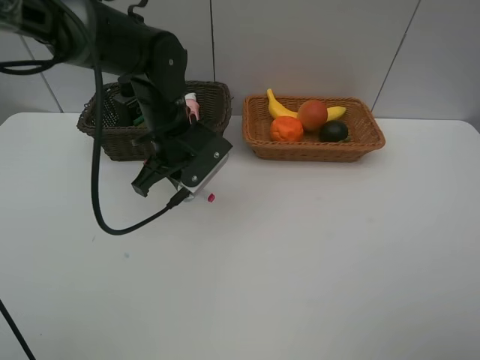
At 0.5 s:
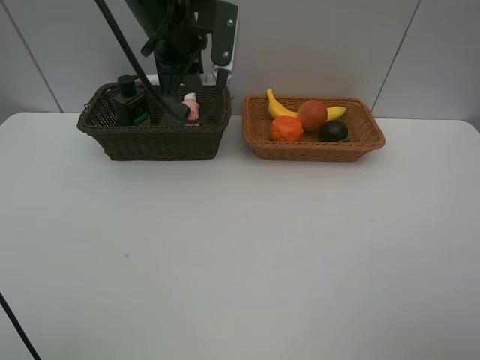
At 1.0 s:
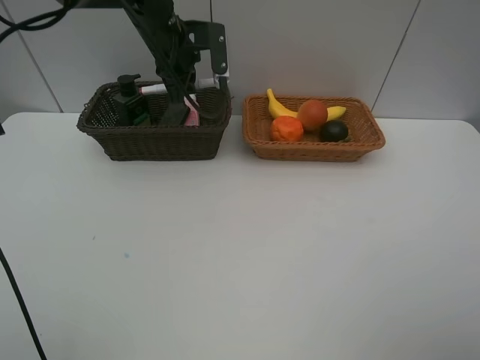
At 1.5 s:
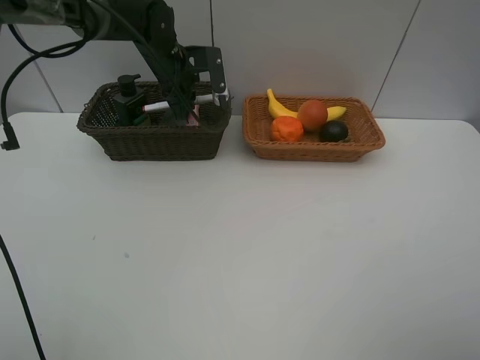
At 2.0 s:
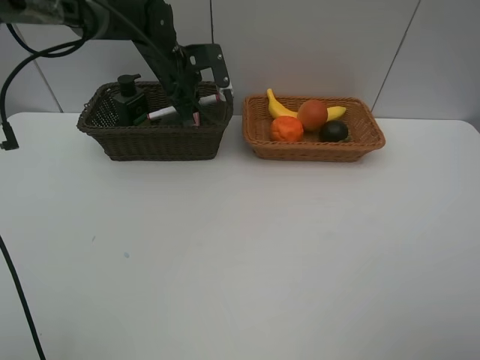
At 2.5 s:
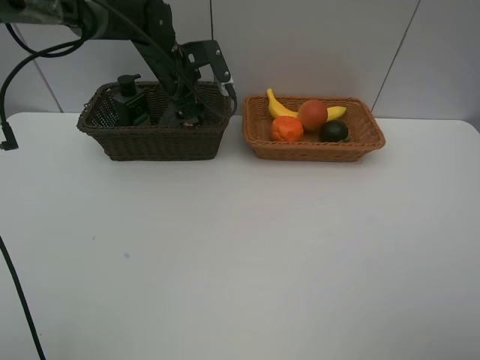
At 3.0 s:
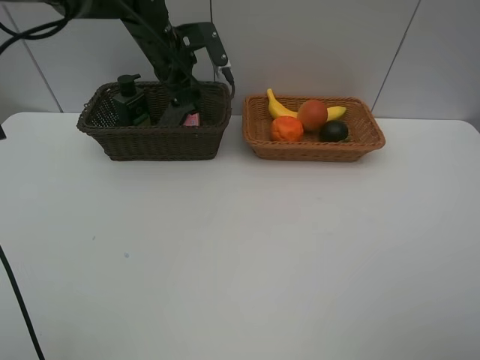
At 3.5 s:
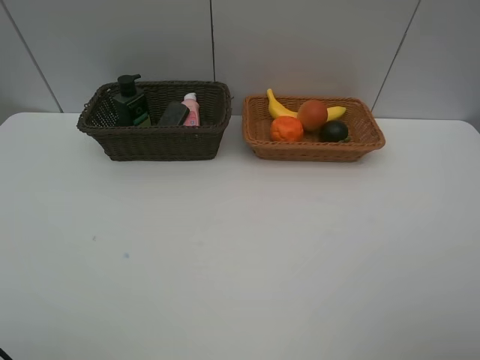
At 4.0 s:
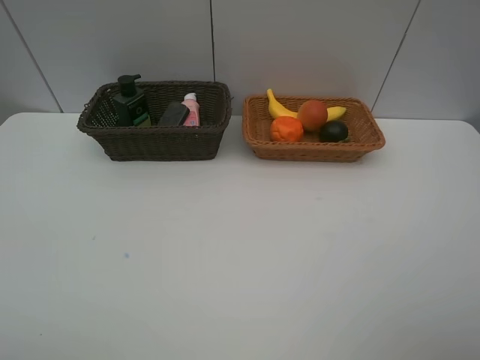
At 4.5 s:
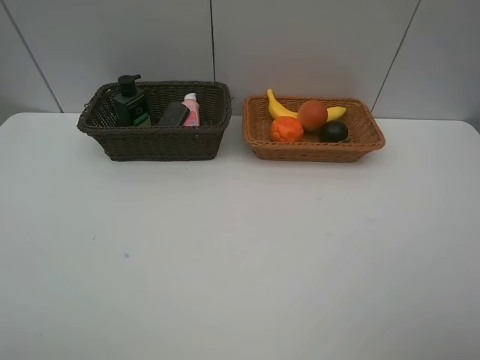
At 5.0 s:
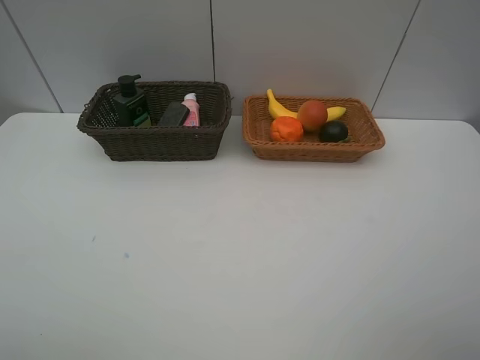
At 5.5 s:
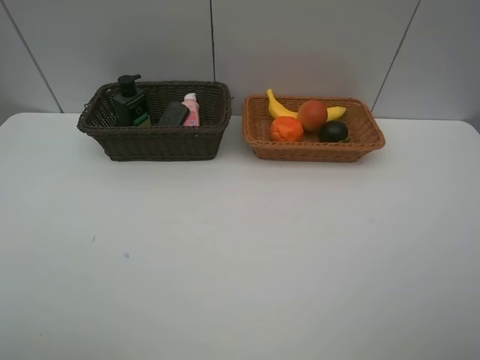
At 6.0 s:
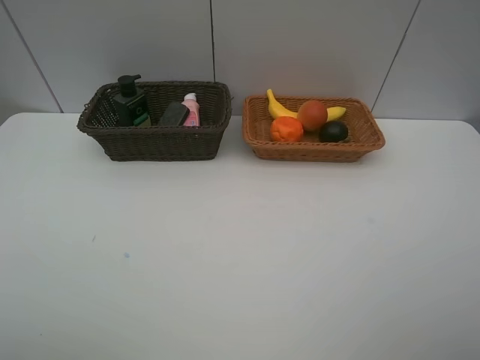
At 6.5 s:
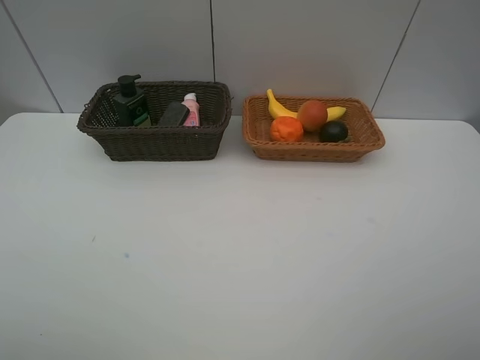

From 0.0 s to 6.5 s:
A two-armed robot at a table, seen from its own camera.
Task of the whole recording: Place multiple objects separately in different baskets.
Step, from 0.0 s to 2.5 s: Place the red marker in the dark basket with left gripper.
From 0.0 s to 2.0 s: The left gripper heads forward, covering some 15 cm.
From 2.0 s to 4.5 s: The left gripper heads backward, upward and to the left, covering roughly 60 cm, and opens.

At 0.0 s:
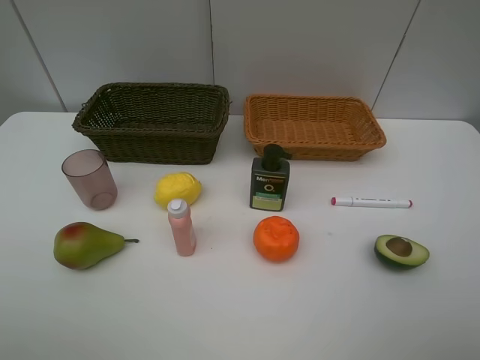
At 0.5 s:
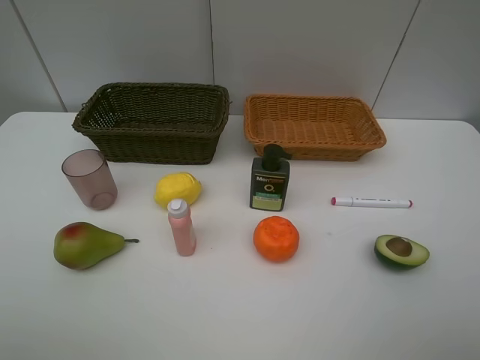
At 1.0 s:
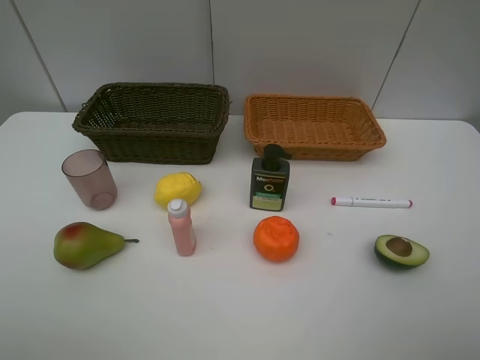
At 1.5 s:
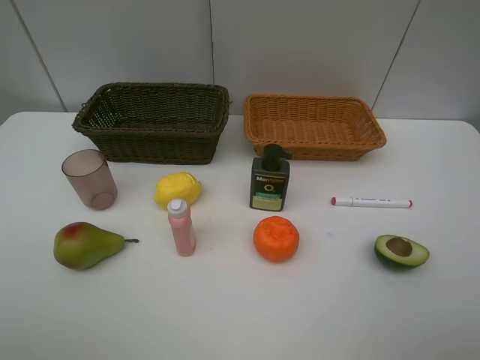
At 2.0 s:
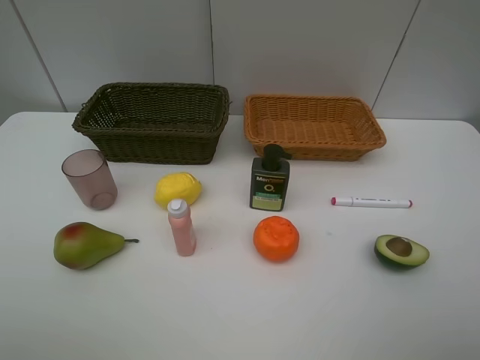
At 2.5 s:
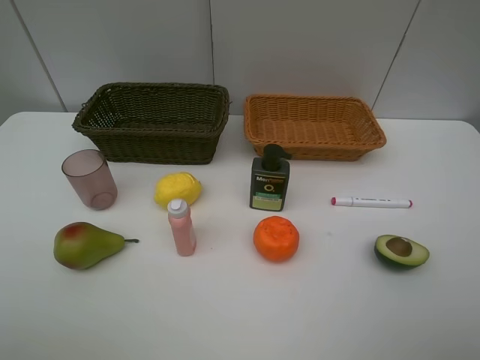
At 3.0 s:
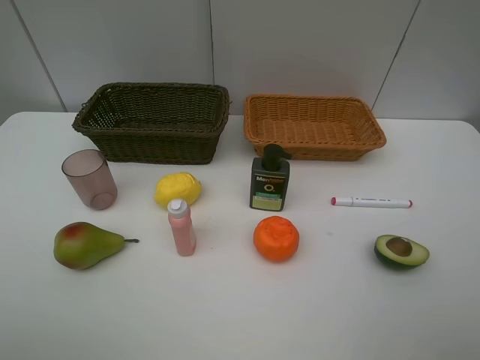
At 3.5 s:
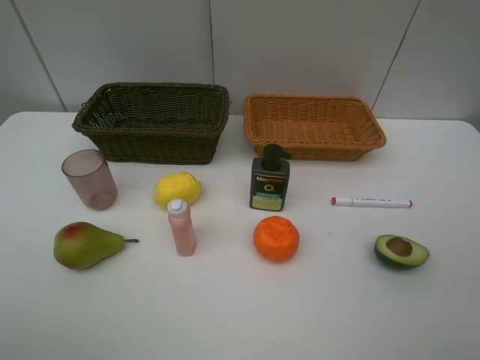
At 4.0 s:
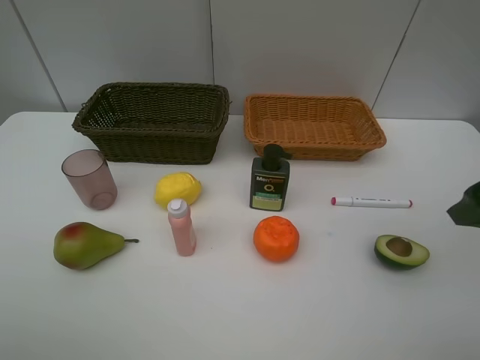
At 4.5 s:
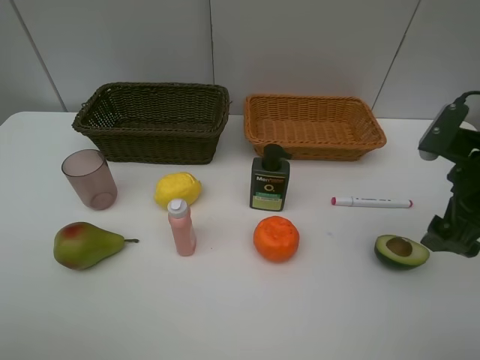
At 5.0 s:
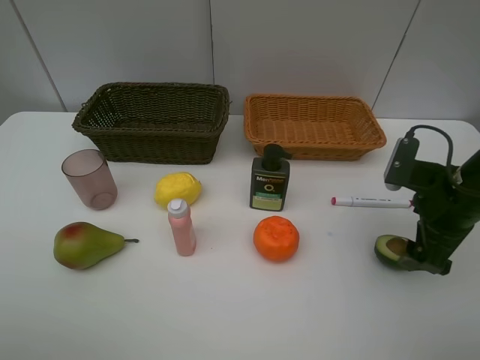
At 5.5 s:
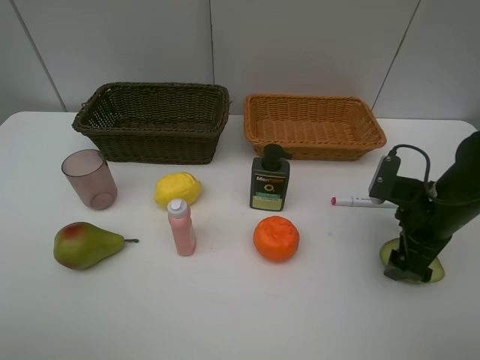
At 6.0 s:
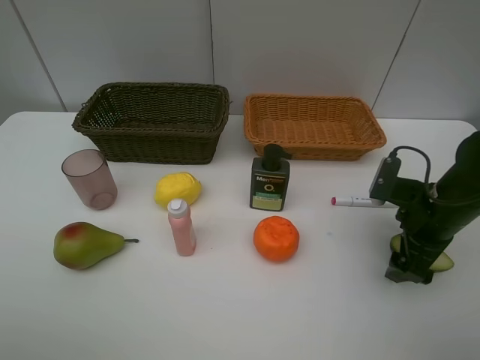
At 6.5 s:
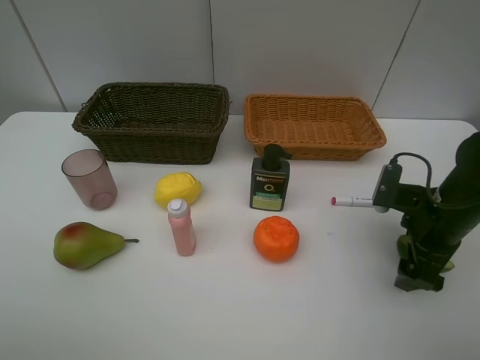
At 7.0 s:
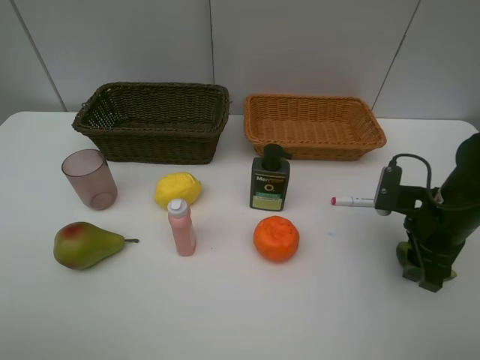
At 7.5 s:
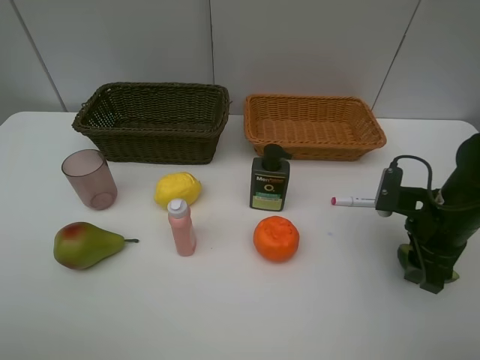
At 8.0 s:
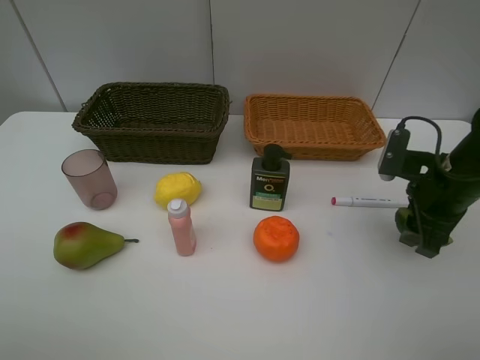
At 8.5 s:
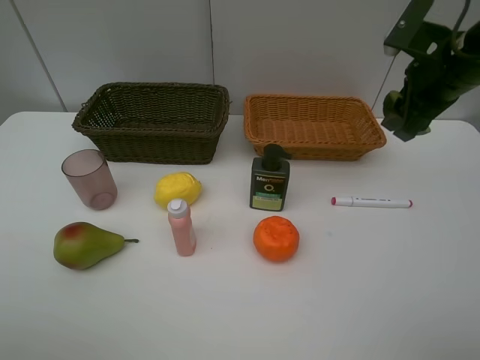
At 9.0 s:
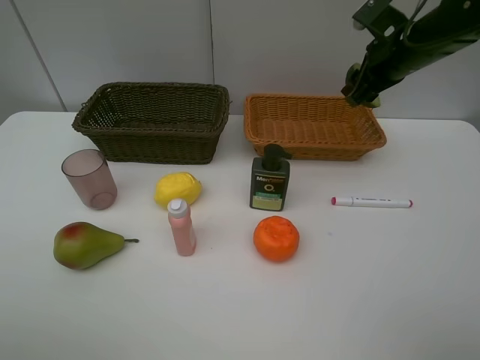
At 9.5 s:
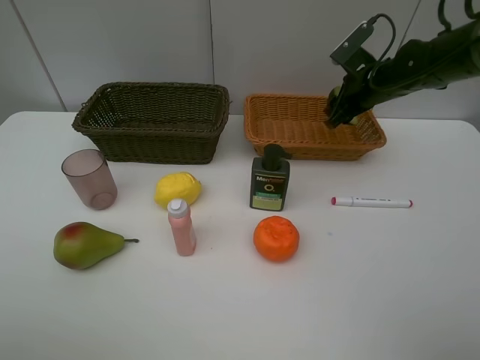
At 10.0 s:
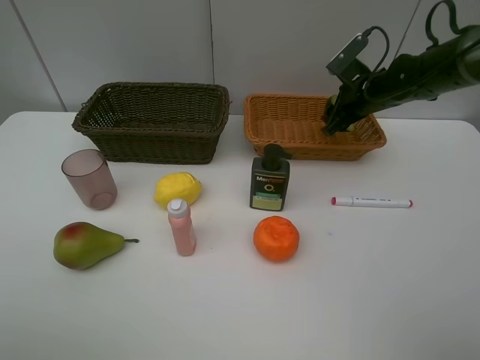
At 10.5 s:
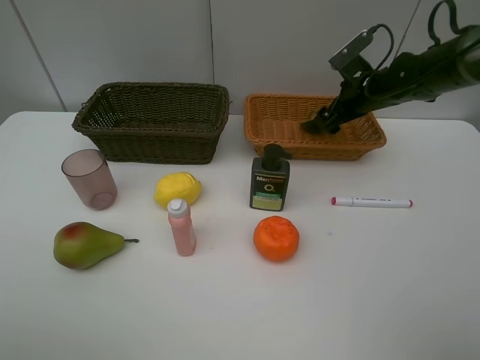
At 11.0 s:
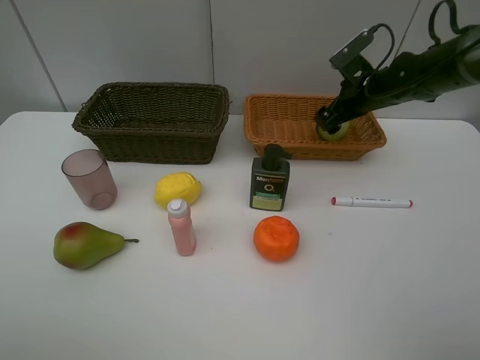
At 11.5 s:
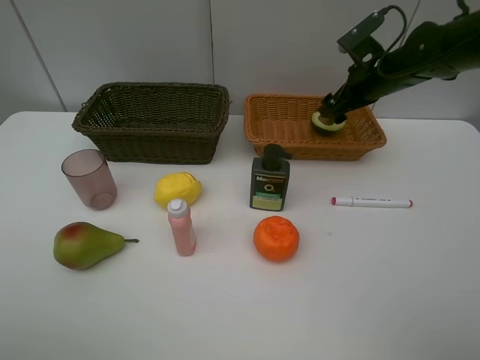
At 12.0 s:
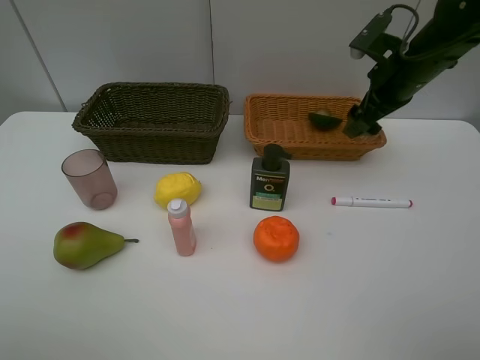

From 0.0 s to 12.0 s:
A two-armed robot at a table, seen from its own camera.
Task of the whole recording: Place multiple objects separately in different baskets.
Step, from 0.0 s to 8.0 s: Pick up the avocado with right gripper.
Step, from 8.5 s to 11.0 s: Place the avocado in the light basket with right gripper.
From 0.0 s to 2.0 s: The two grippers keep their place.
From 4.0 s to 6.0 s: The right gripper moves downward and forward, some 15 cm.
From 6.0 s to 8.0 s: The right gripper moves some 5 cm, and closes up.
From 8.0 s to 10.0 s: The right gripper heads forward, covering roughly 20 cm.
From 10.0 s to 12.0 s: The right gripper shifts approximately 10 cm upward and backward, and opens.

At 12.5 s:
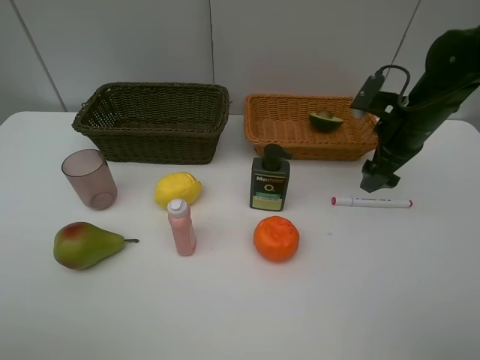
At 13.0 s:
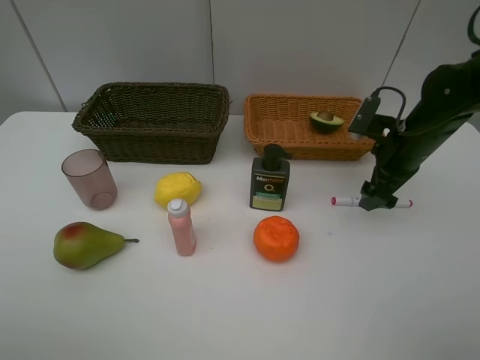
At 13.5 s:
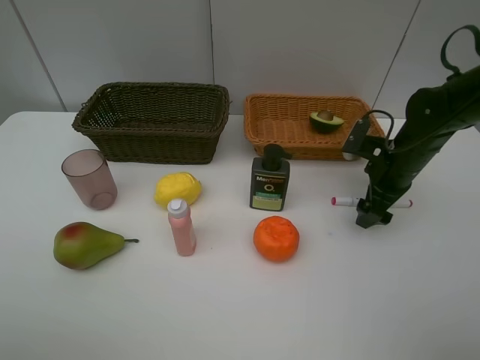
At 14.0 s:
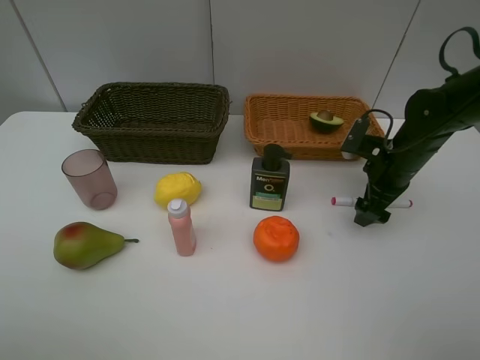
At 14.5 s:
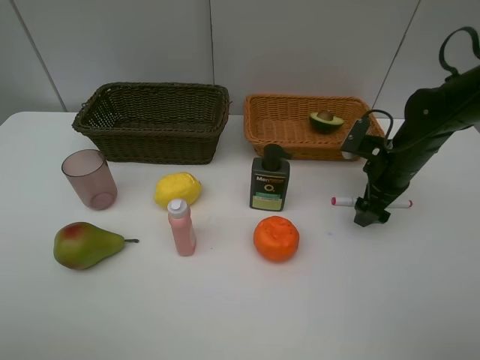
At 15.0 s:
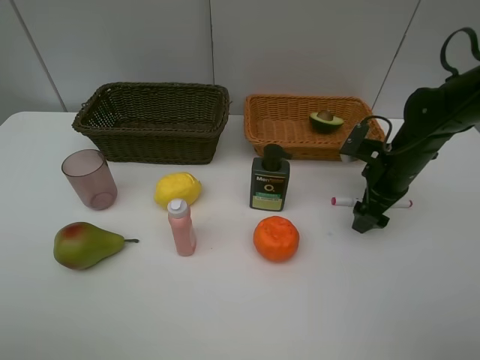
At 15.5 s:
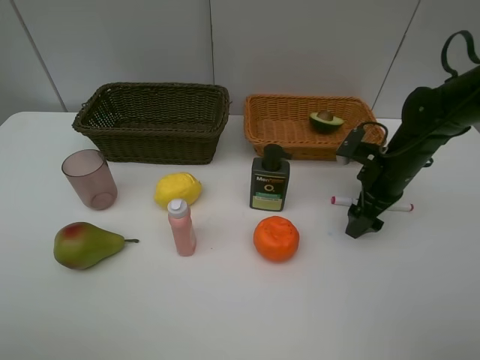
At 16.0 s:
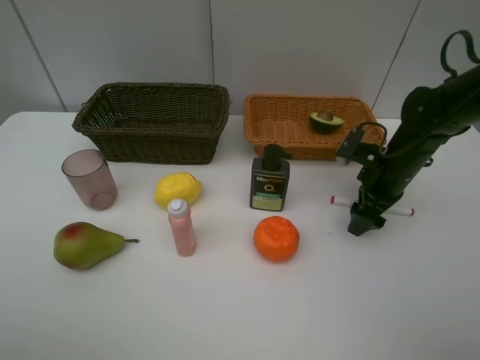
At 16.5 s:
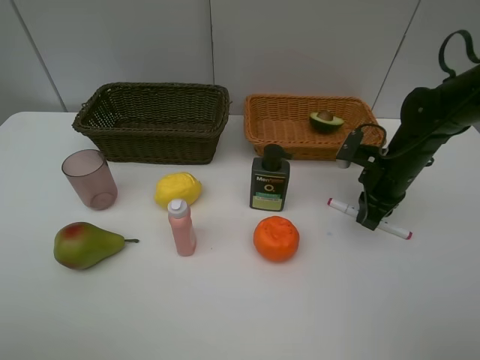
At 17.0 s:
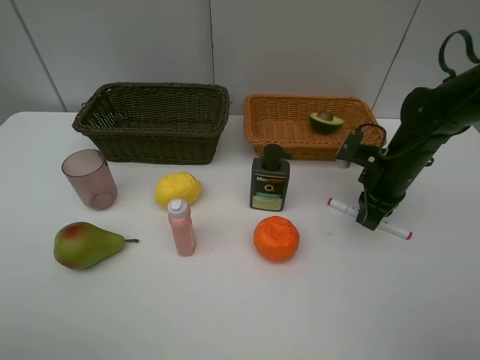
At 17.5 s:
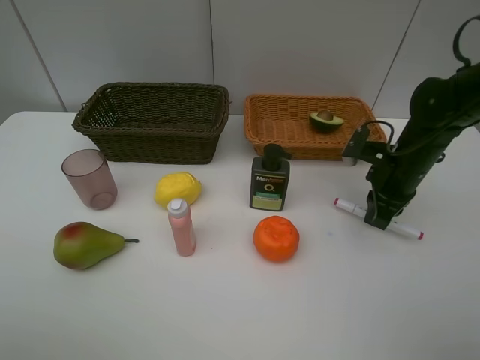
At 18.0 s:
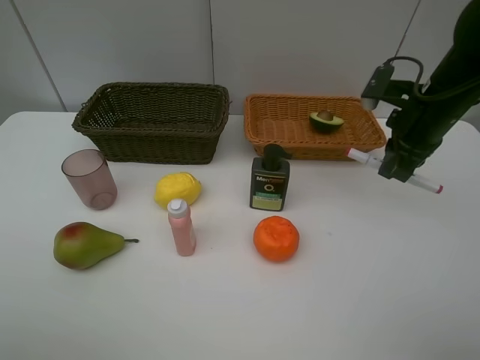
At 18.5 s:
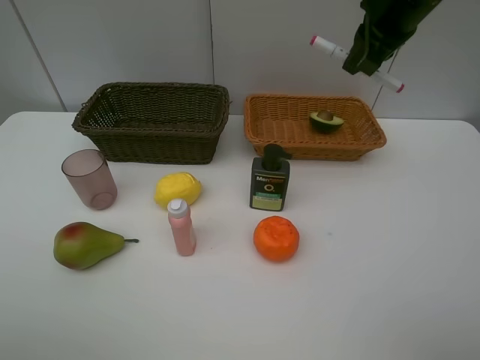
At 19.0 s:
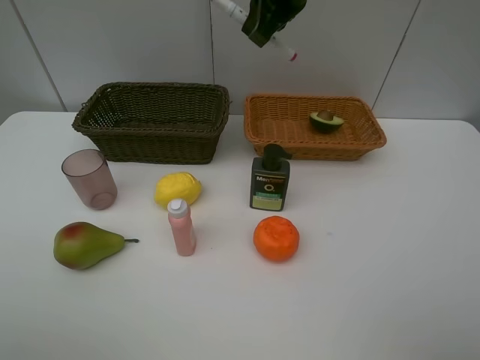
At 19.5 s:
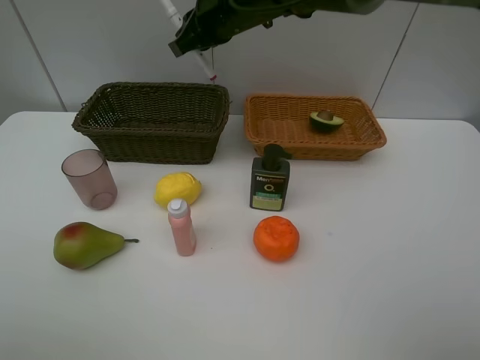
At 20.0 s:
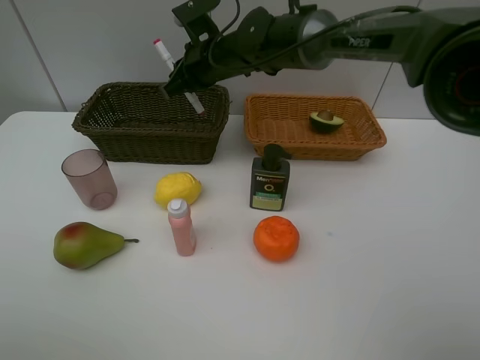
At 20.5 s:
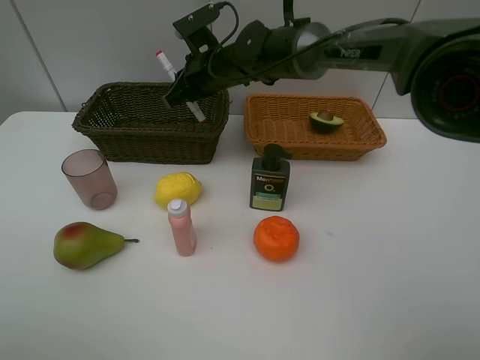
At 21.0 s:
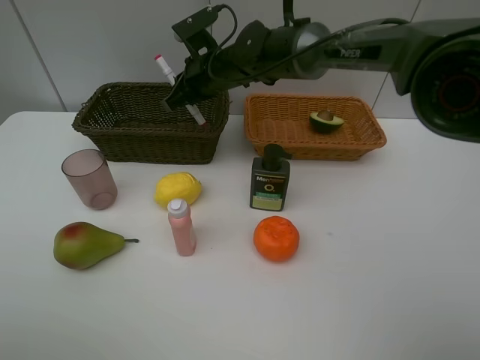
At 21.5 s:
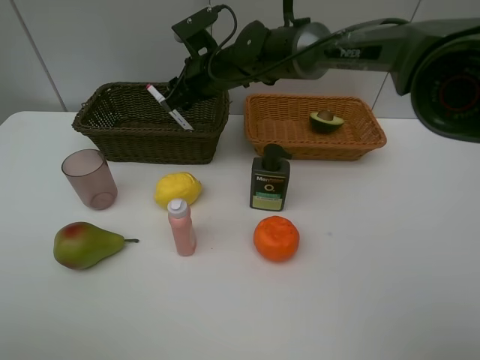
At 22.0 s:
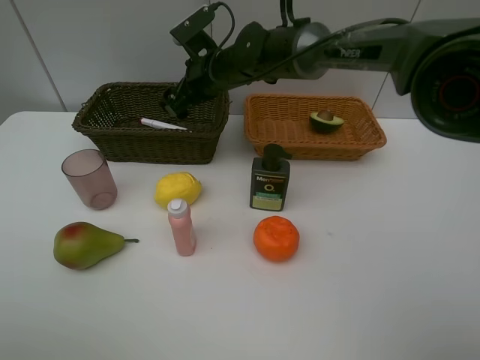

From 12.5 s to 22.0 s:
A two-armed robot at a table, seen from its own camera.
Task of the whole recording: Place multiple objects separately in different baskets.
Step, from 12.5 s to 17.5 s: Pick up the red marker with right gripper.
Step, from 18.0 s to 21.5 s: Place the red marker in the dark basket with right gripper.
From 12.5 s to 14.5 s: The right gripper shifts about 5 cm downward.
From 14.5 s to 16.5 s: The right gripper closes up.
From 16.5 s to 18.0 s: The right gripper moves upward, some 10 cm.
From 18.0 s to 20.0 s: The right gripper moves to the left and forward, roughly 30 cm.
From 20.0 s to 22.0 s: The right gripper opens.
